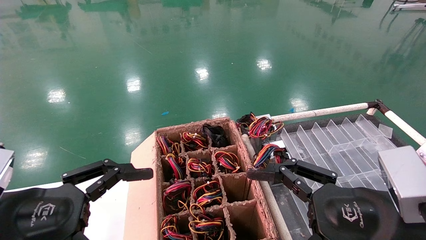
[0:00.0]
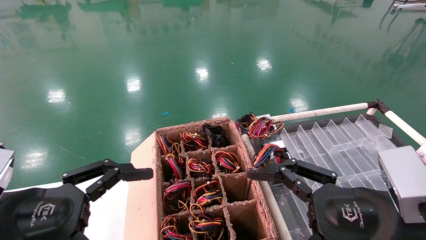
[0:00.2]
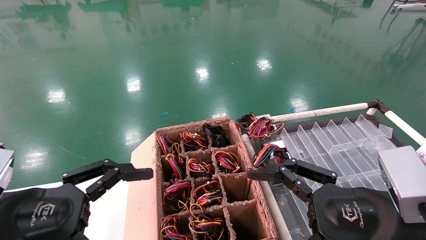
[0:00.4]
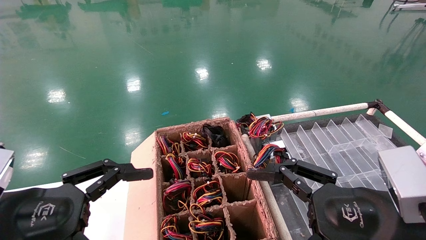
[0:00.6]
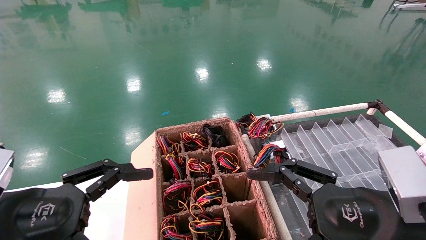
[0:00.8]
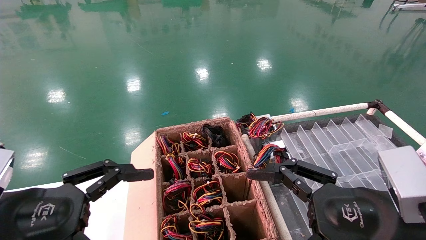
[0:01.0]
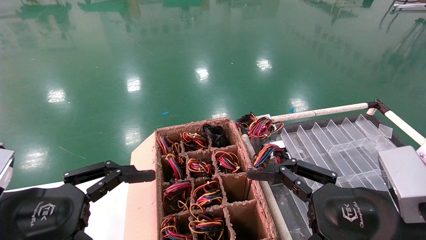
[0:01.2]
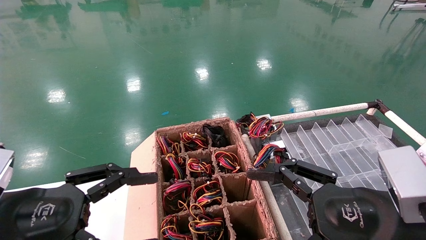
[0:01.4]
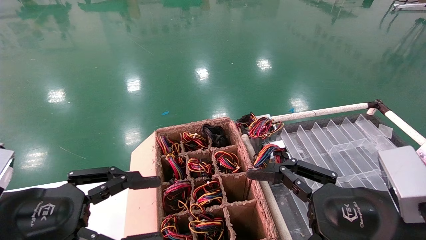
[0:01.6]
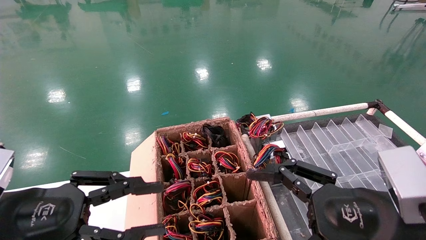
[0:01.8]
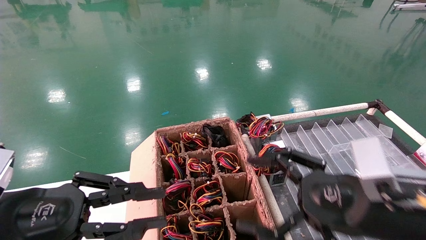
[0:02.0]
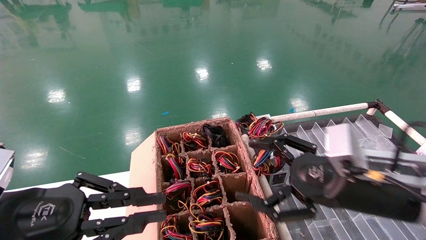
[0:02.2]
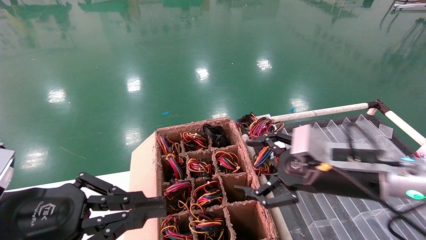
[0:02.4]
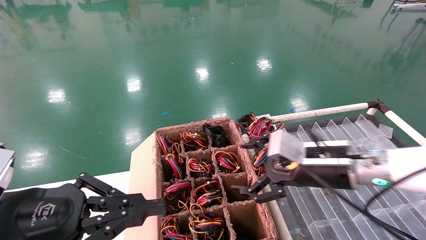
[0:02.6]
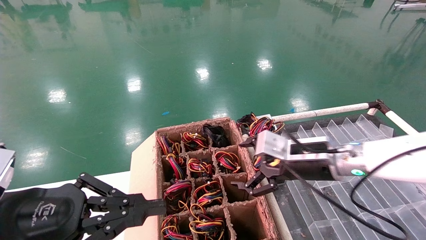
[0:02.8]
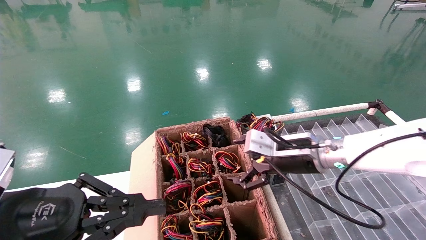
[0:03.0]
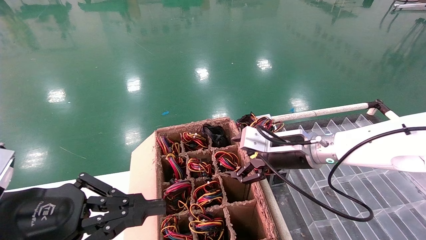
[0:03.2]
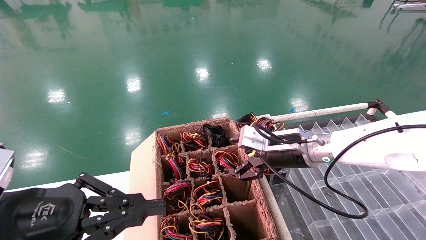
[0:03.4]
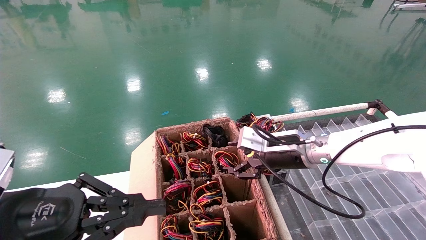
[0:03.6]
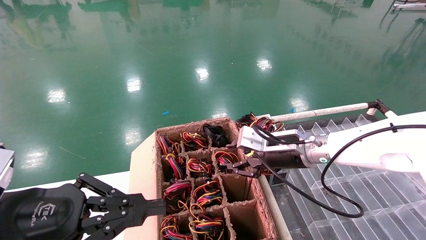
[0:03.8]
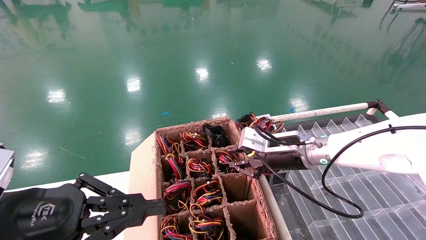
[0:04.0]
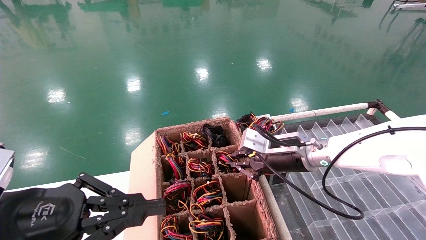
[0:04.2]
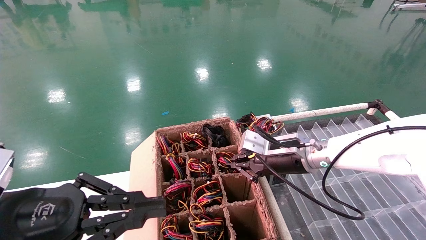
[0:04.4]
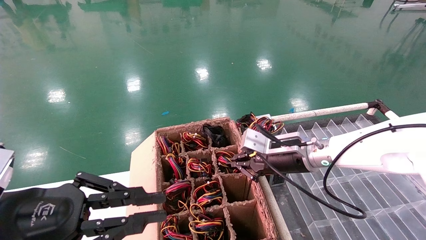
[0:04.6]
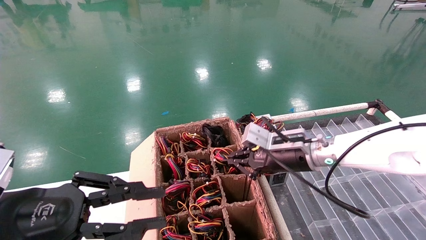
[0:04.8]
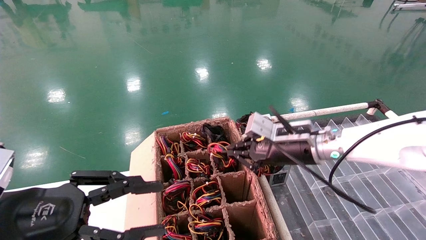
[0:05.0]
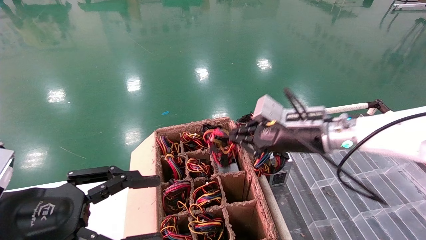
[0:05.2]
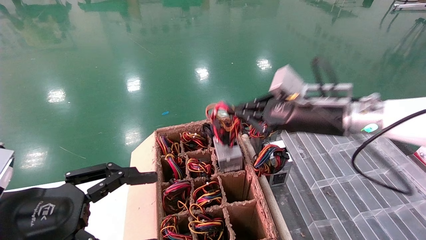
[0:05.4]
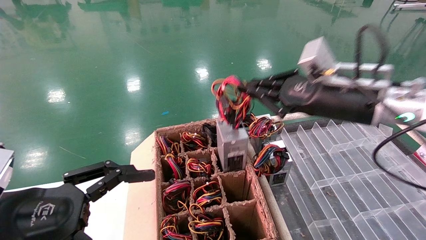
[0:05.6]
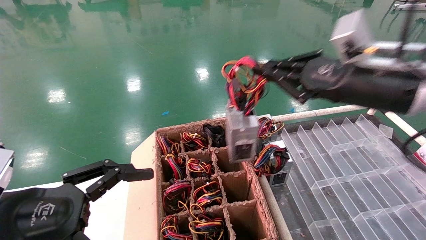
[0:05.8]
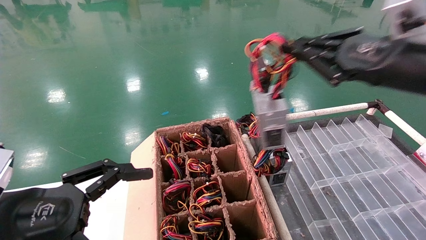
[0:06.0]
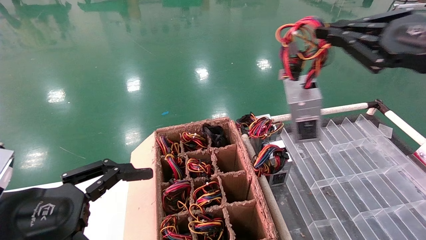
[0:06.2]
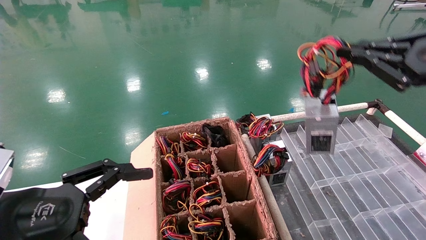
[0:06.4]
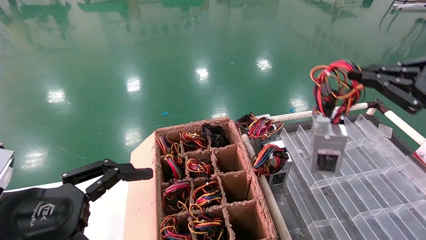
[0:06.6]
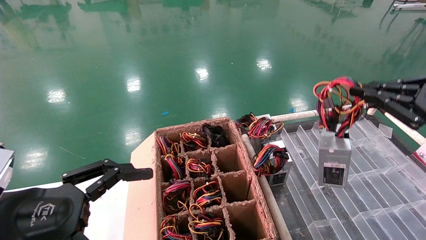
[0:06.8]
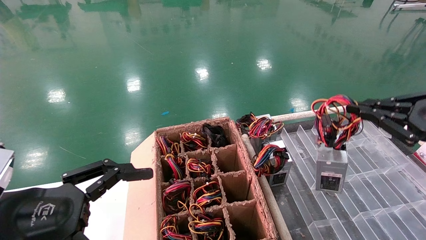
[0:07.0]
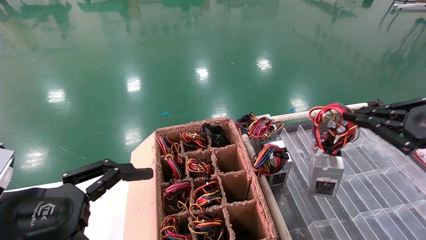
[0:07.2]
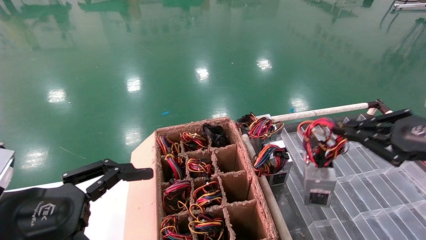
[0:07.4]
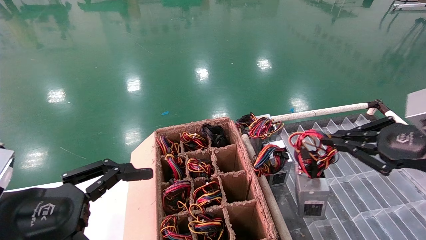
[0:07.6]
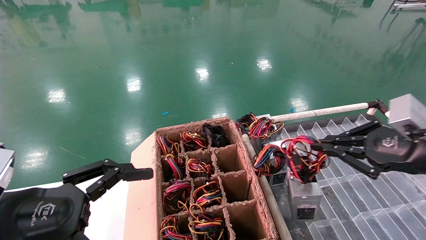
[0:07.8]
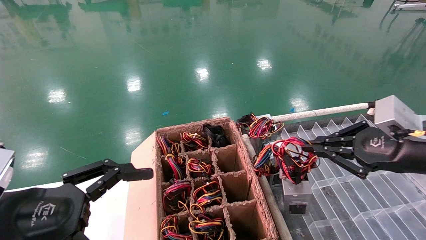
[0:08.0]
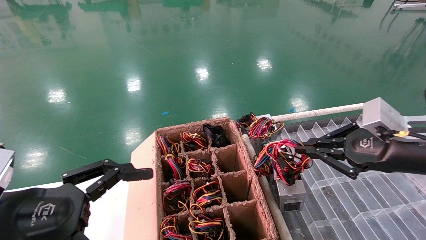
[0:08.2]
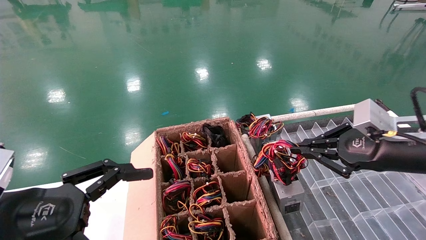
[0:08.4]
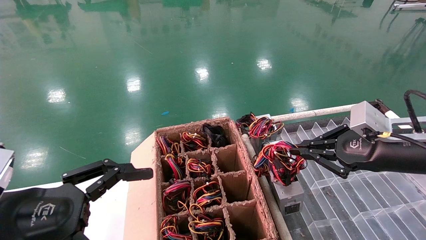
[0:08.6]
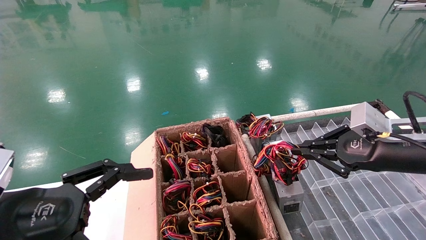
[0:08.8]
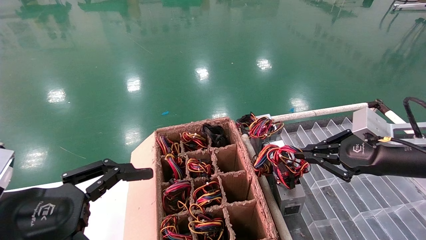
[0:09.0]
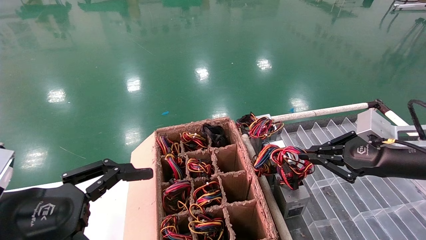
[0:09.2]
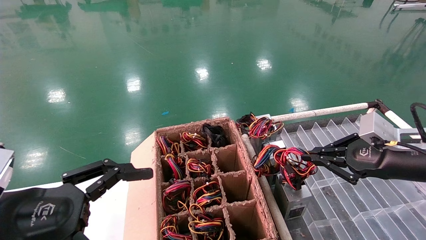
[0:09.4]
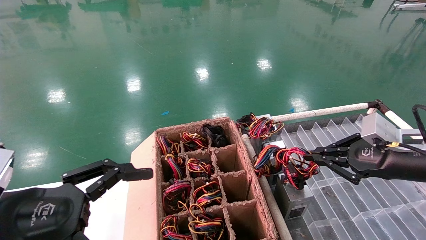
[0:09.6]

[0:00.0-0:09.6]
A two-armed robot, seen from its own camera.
Step, 0:01.4 to 0:04.4: Grab and lift the power supply from the large box.
0:00.0 to 0:01.6: Both grippers stay put.
0:01.6 to 0:03.2: The right gripper moves forward, approximately 20 cm, while the left gripper closes up.
0:03.2 to 0:04.8: The right gripper closes up.
0:04.8 to 0:06.4: The left gripper opens. Meanwhile the right gripper heads backward, to the right and upward, covering roughly 30 cm.
0:06.4 to 0:08.0: The right gripper goes roughly 10 cm downward.
0:08.0 to 0:09.6: The right gripper shifts by roughly 5 cm.

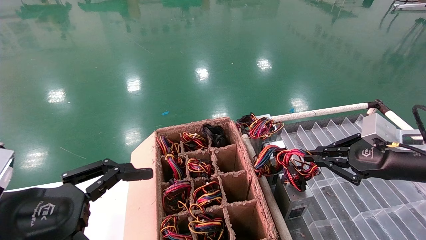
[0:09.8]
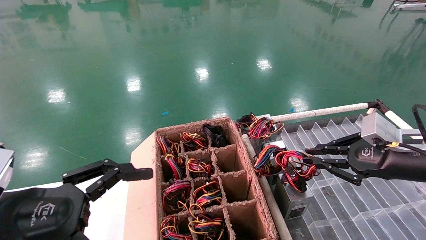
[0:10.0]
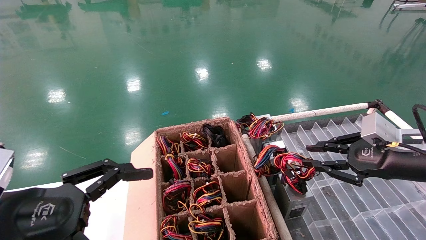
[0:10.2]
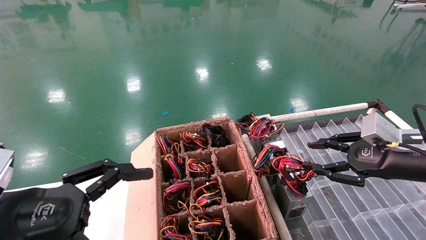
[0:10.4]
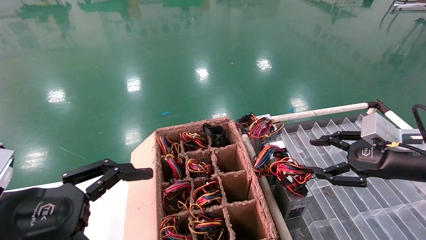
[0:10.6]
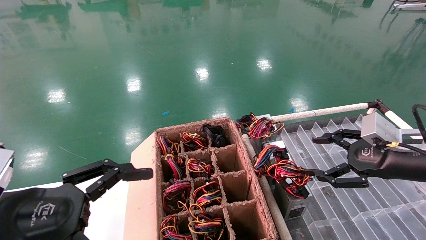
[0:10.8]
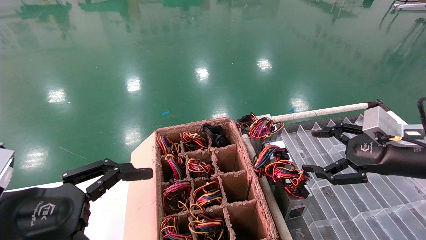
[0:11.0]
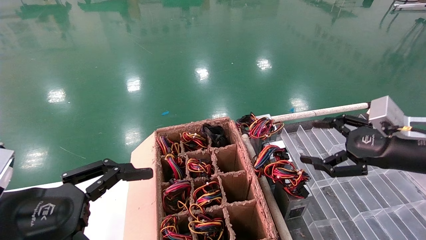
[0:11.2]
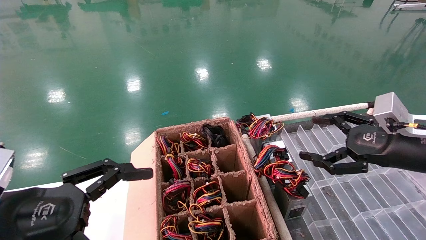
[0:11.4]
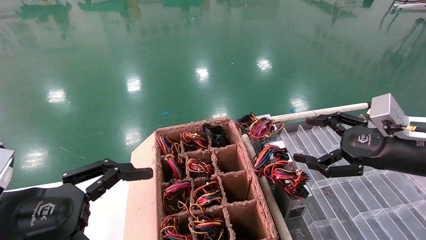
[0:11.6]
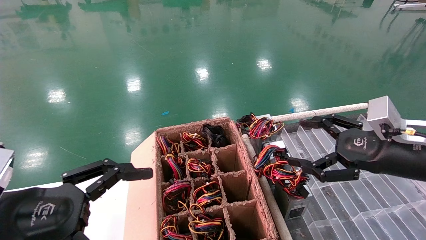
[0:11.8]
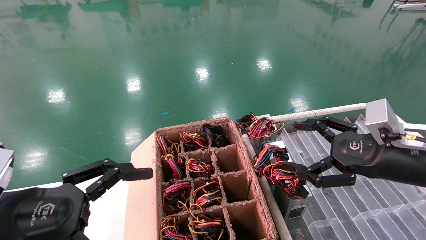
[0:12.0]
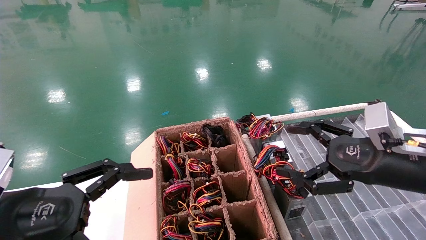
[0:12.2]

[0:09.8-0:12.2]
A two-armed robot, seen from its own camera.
0:09.8 to 0:11.0: The right gripper opens its fingers.
0:11.0 to 0:12.2: The right gripper travels to the left by some 5 cm.

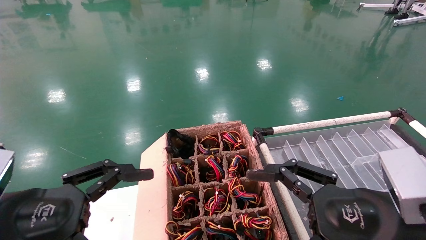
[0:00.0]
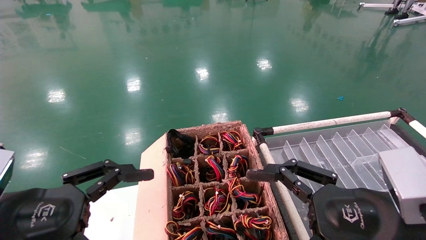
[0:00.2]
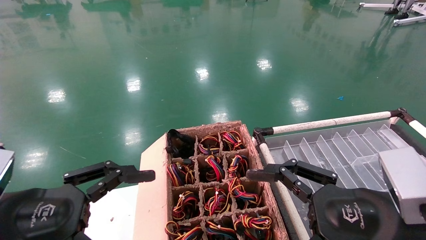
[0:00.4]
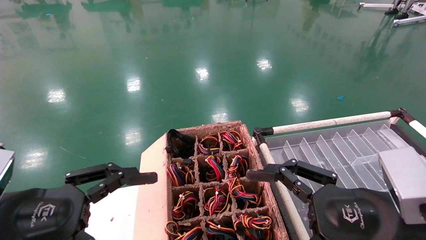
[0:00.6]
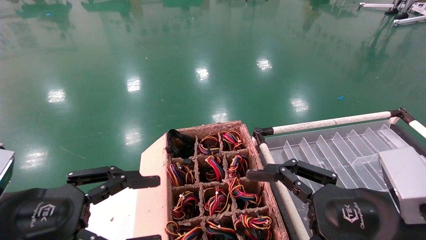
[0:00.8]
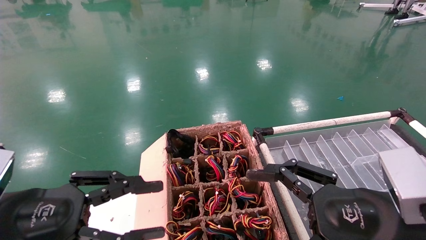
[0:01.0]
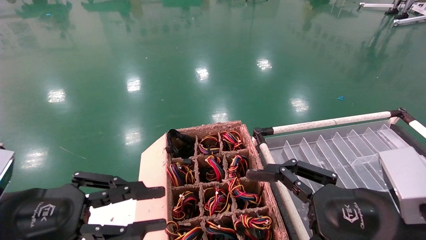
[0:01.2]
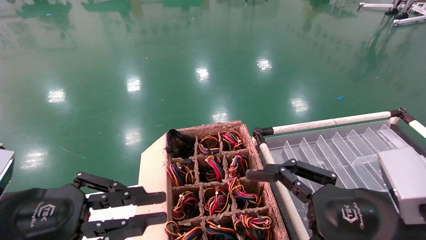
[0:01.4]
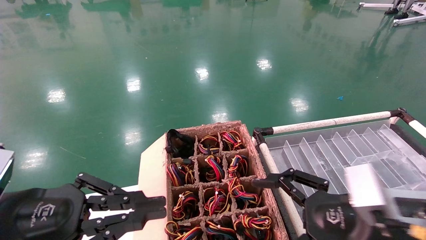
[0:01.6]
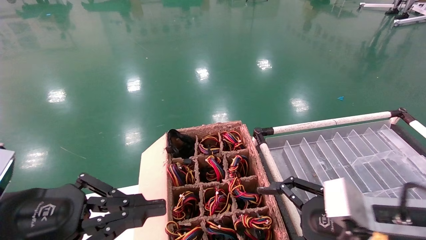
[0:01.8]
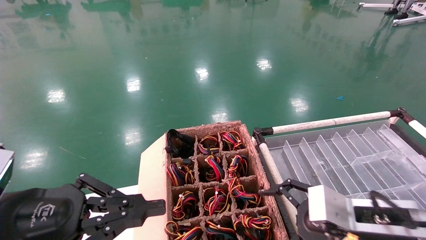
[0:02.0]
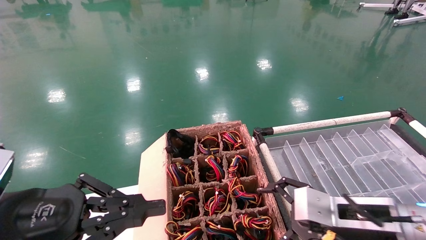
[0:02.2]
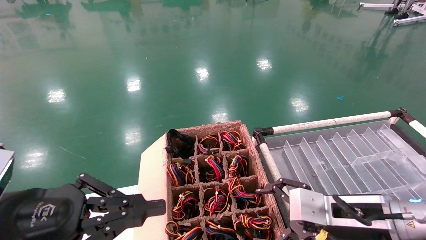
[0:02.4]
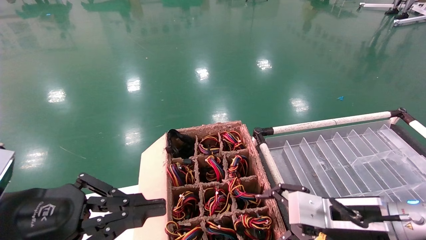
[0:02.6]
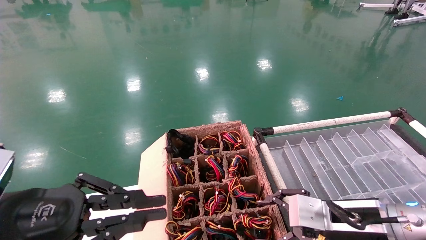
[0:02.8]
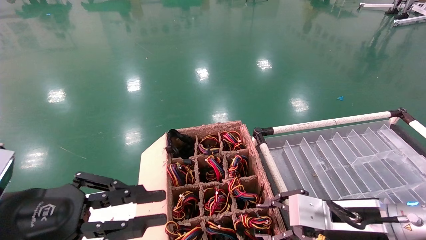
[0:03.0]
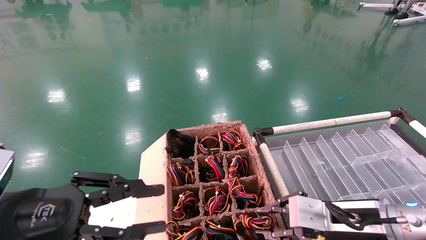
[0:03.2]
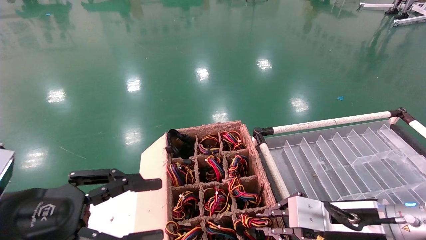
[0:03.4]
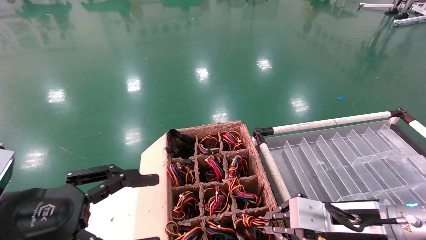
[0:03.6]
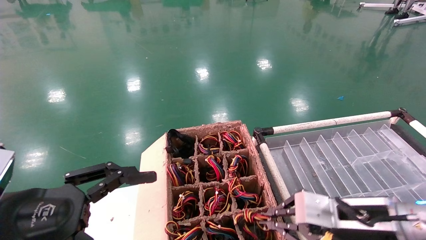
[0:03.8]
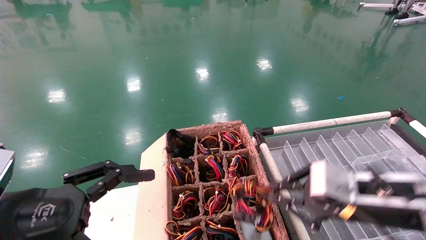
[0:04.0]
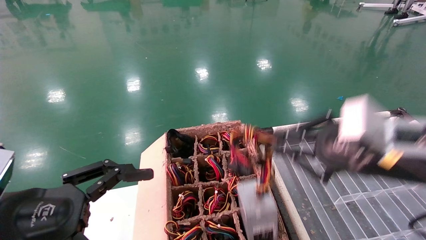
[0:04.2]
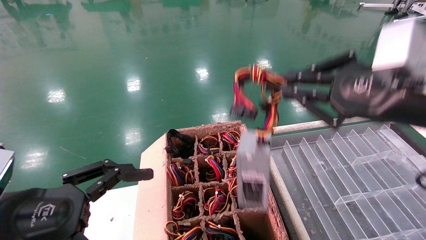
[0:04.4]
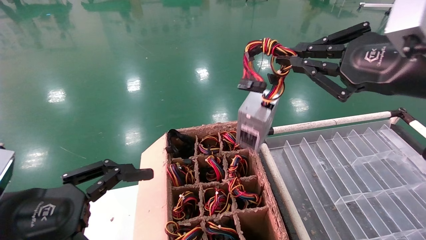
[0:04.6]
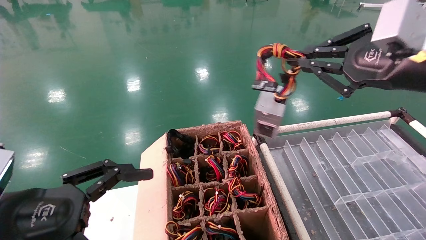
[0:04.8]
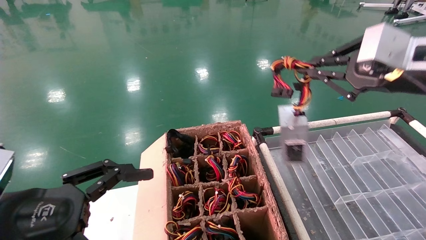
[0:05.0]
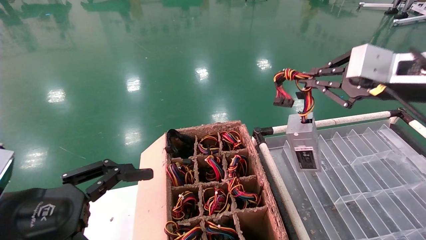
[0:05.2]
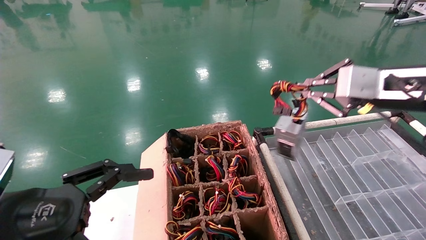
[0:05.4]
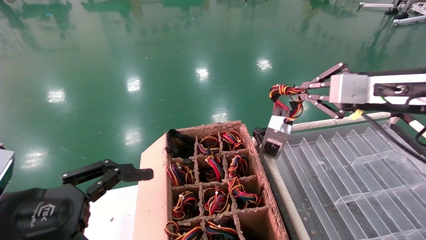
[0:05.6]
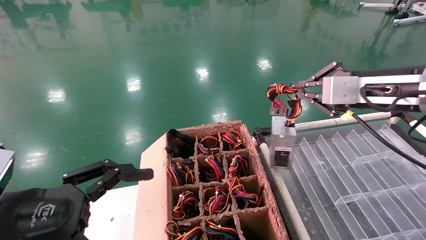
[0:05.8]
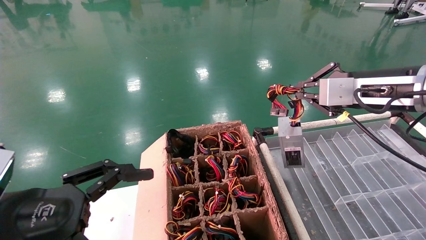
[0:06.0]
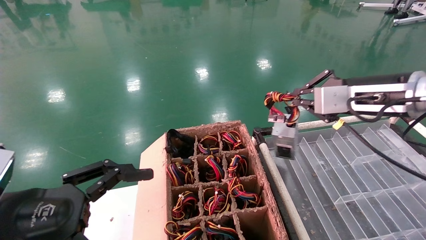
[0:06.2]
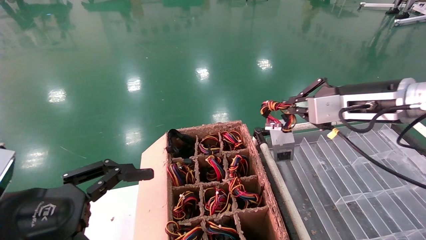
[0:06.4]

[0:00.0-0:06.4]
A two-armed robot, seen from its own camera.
Step, 0:01.0 to 0:03.6: Grab and lift the power supply from the large box.
0:00.0 to 0:01.6: The left gripper closes.
0:01.6 to 0:03.2: The right gripper shifts roughly 5 cm forward, and closes up.
0:03.2 to 0:04.8: The left gripper opens its fingers. The right gripper heads upward, covering approximately 25 cm, and closes its fingers.
0:04.8 to 0:06.4: The right gripper goes about 10 cm forward.
